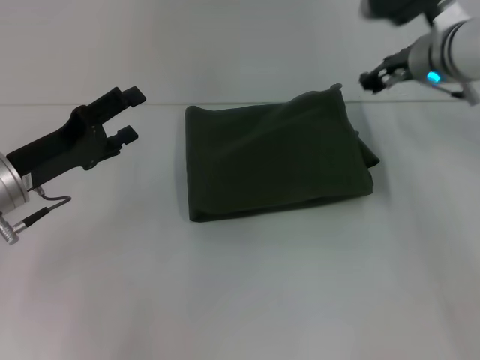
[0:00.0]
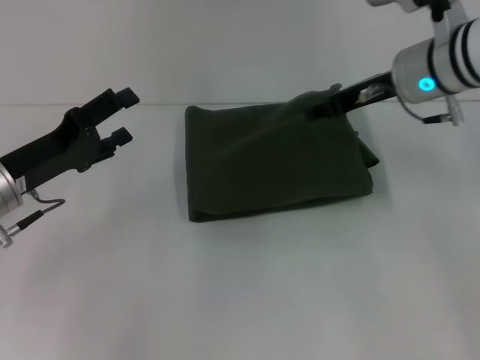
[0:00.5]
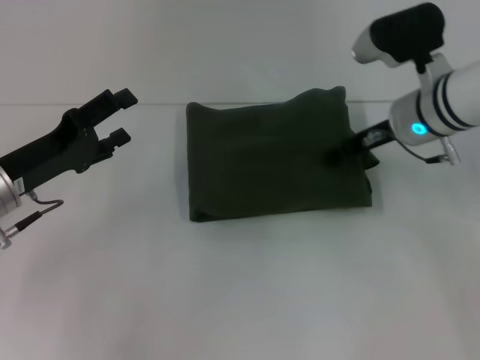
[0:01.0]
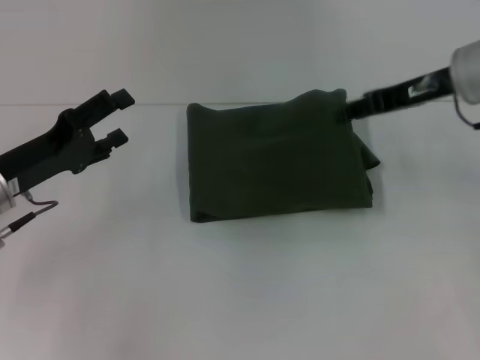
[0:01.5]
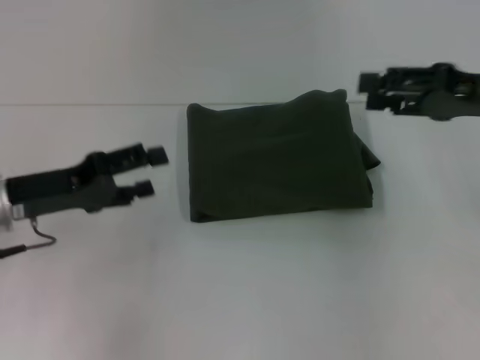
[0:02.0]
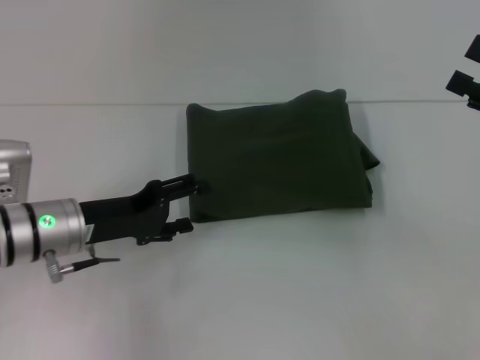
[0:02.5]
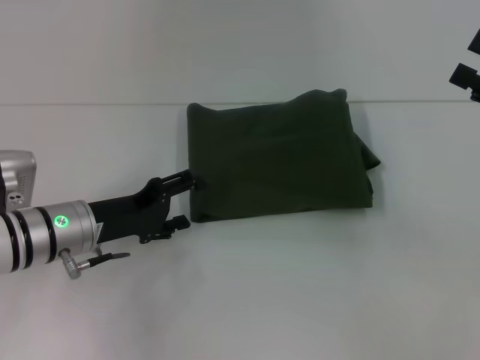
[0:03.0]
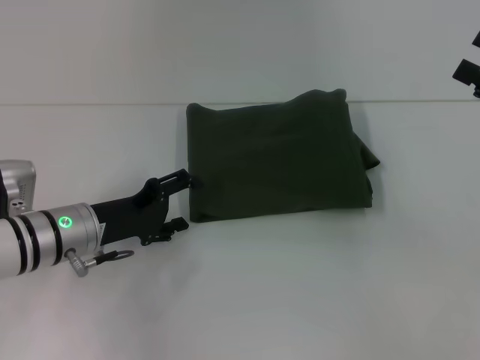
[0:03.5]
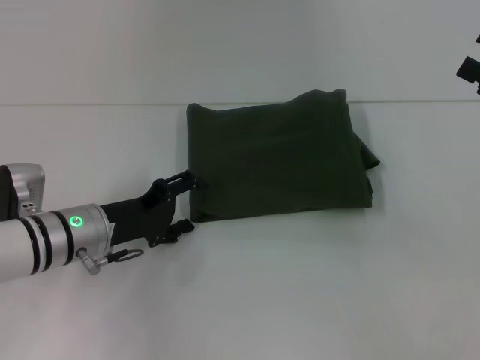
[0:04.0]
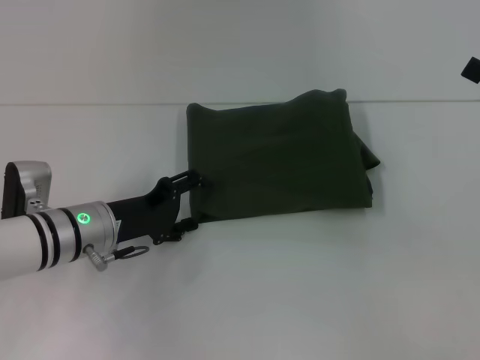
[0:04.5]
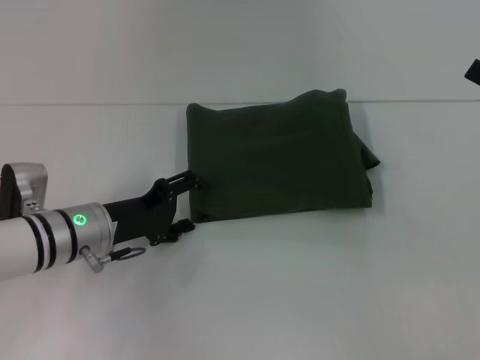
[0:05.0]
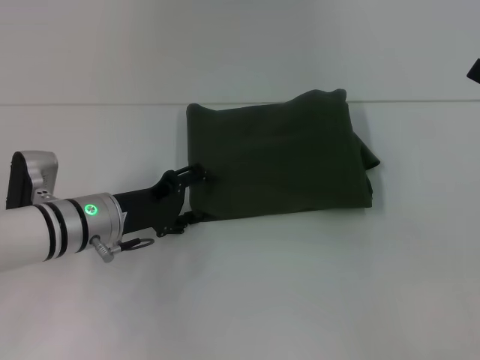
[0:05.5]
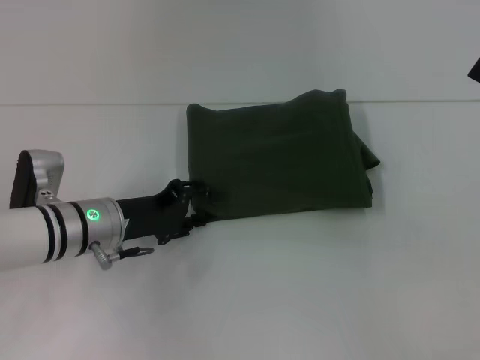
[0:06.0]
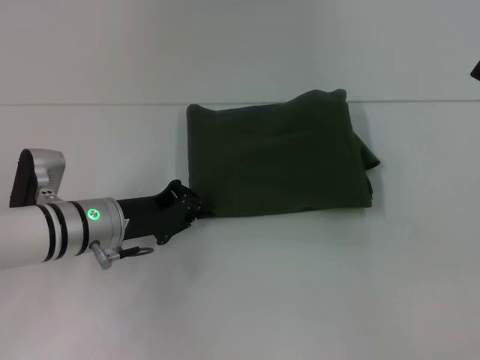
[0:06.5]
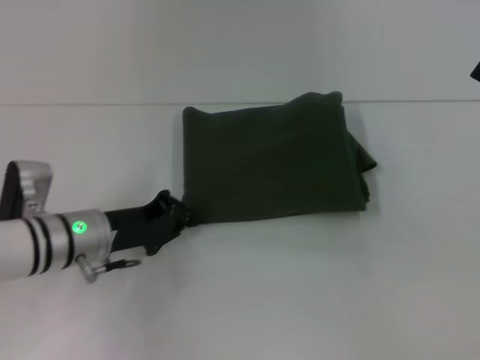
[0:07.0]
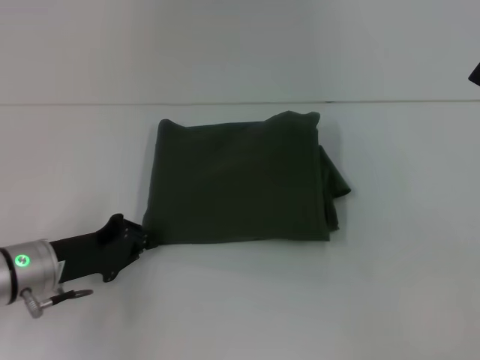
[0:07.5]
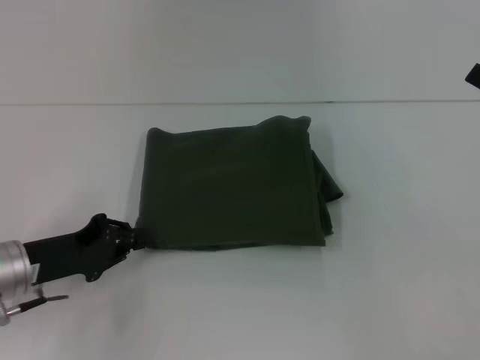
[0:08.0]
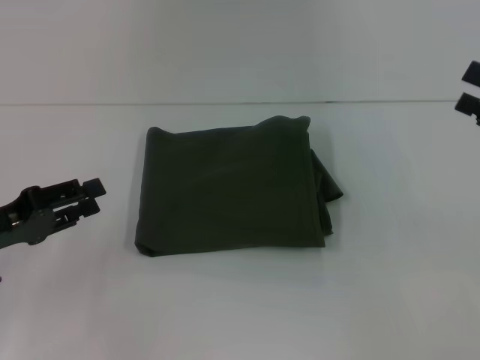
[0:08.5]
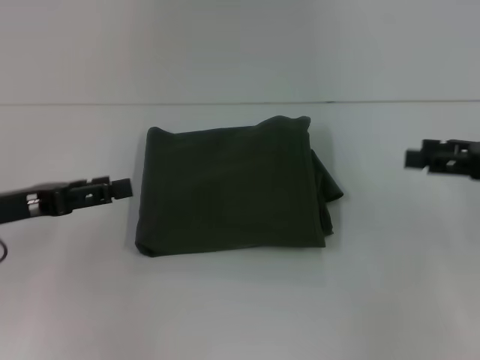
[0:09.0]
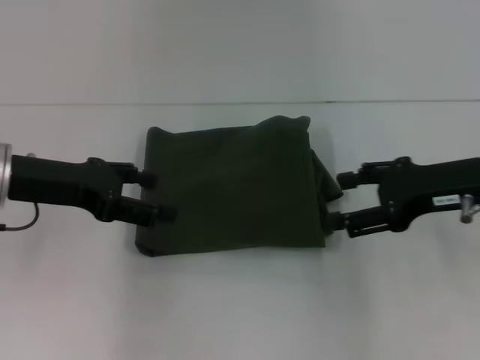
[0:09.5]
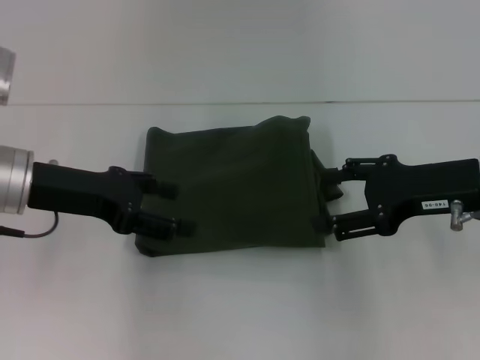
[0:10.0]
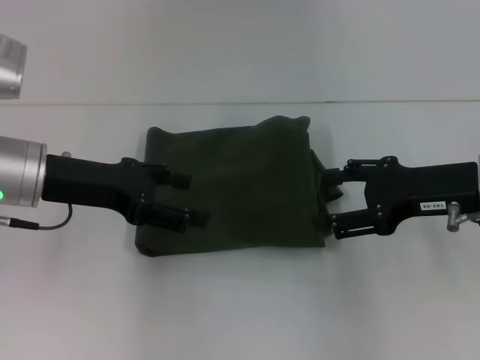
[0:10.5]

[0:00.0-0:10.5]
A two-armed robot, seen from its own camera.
0:00.0 to 0:02.0: The right gripper goes some 15 cm backward and to the right.
0:02.0 to 0:04.0: The right gripper goes roughly 10 cm to the right and backward, and opens its fingers, while the left gripper heads to the right and downward, covering some 10 cm.
0:04.0 to 0:06.5: The left gripper closes up.
0:06.5 to 0:08.5: The left gripper shifts approximately 15 cm to the left and backward.
0:08.5 to 0:10.5: The right gripper moves to the left, roughly 10 cm; the left gripper goes approximately 15 cm to the right, forward and upward, and opens up.

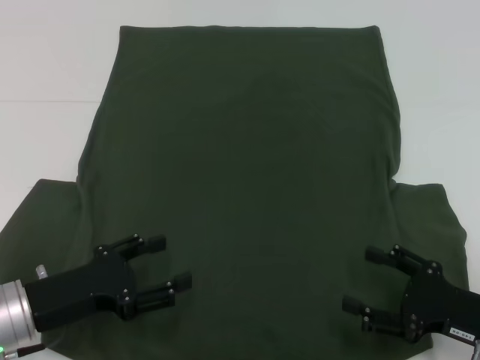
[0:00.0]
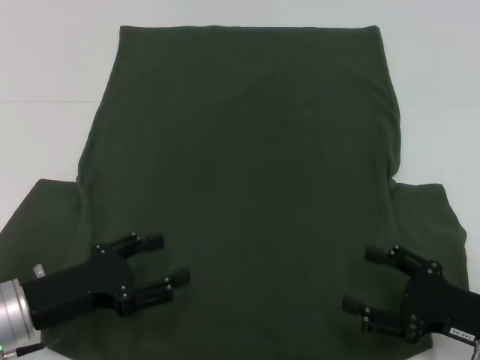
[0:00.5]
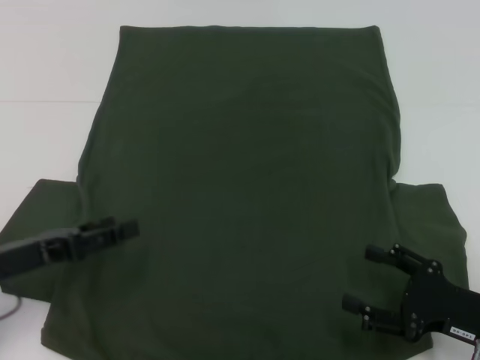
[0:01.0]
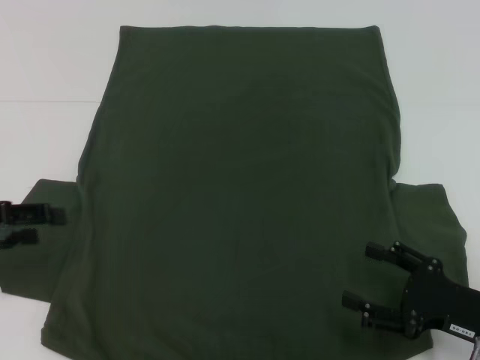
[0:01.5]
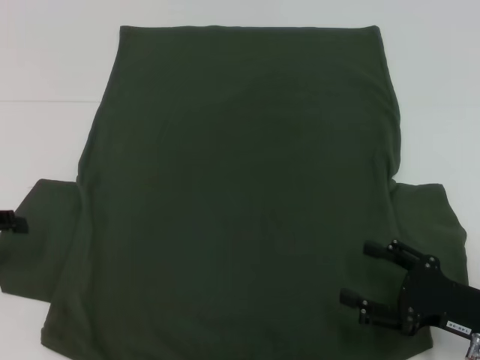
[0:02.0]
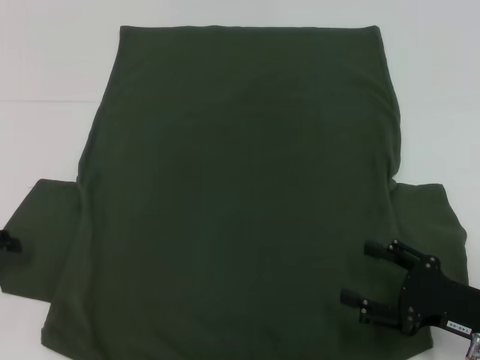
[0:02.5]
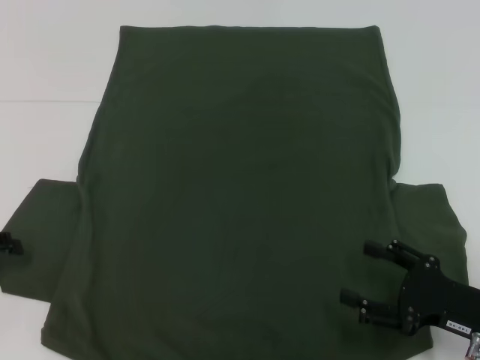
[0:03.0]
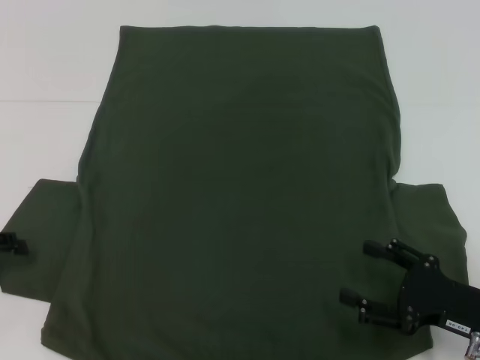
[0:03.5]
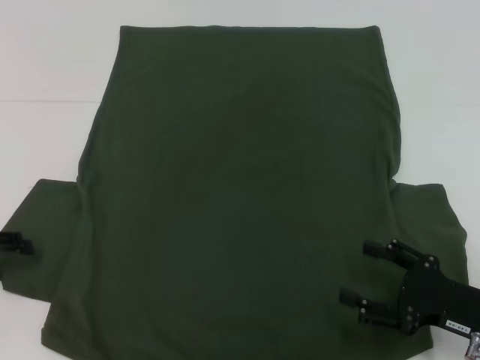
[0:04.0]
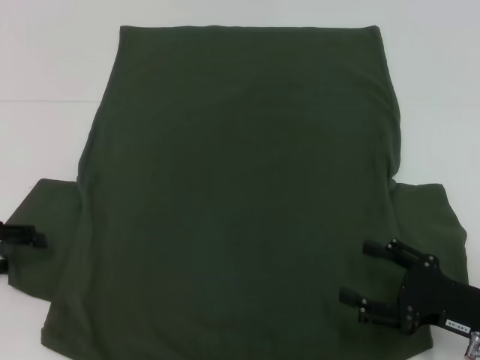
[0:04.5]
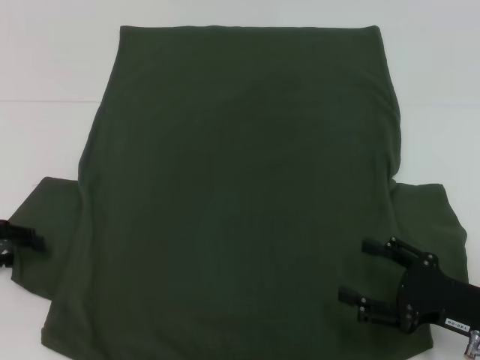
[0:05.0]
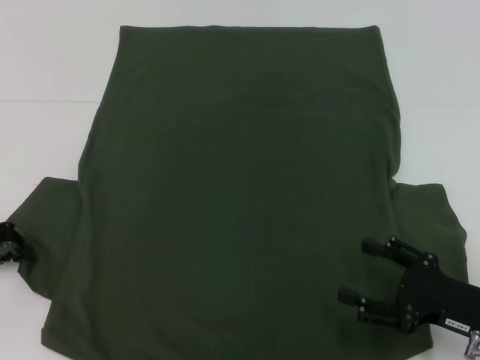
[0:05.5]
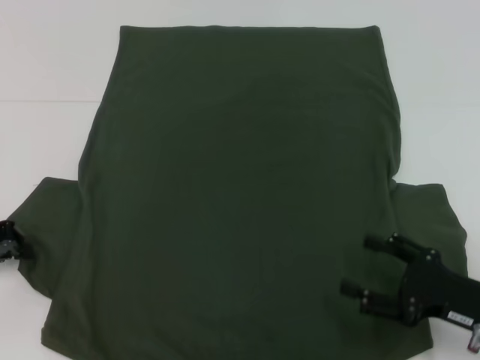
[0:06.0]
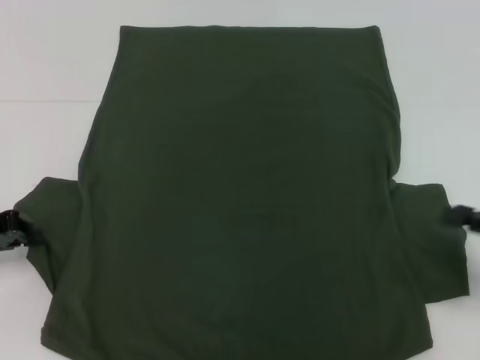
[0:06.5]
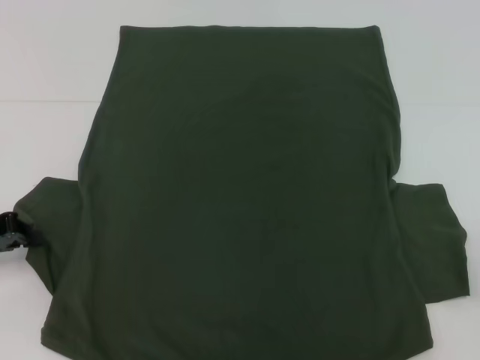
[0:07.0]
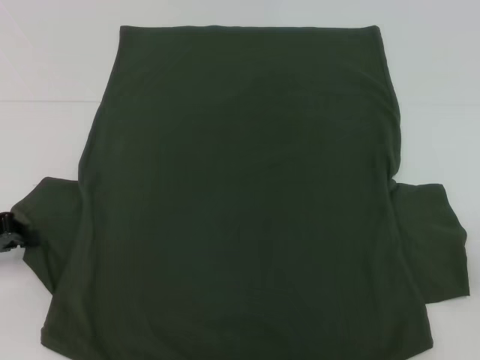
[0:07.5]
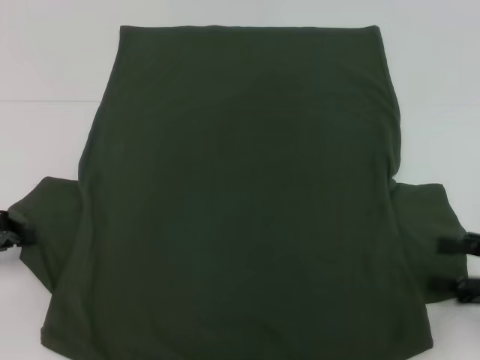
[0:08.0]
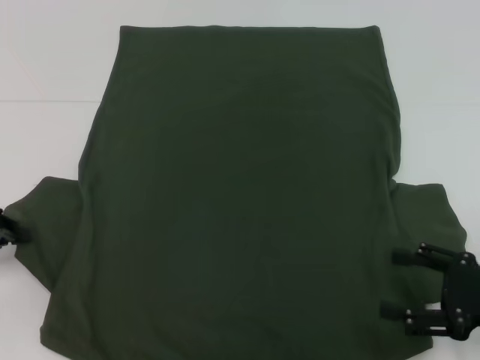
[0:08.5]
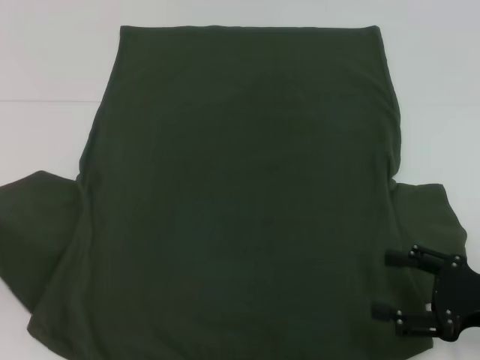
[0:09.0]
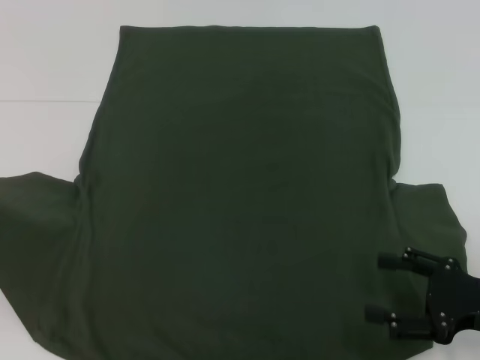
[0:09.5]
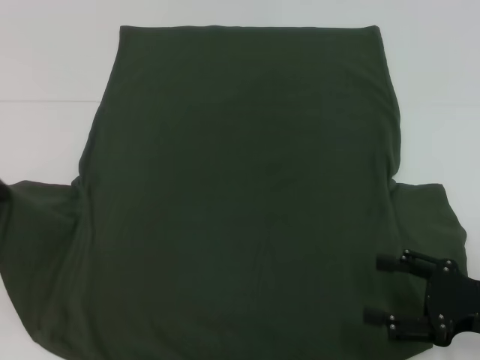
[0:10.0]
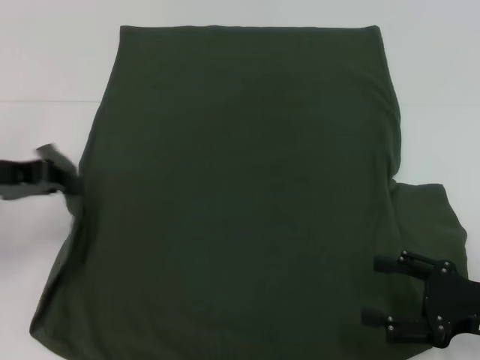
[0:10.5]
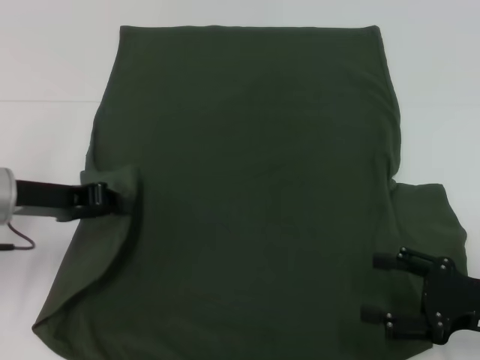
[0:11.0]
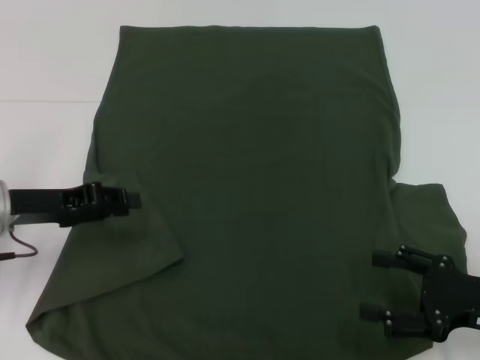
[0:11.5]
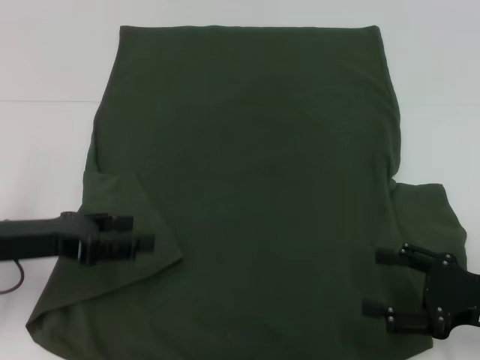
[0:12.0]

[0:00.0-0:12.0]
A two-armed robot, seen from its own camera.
Step, 0:00.0 to 0:11.0: Fold the bottom left sleeve with your left hand.
0:00.0 to 0:02.0: The left gripper goes roughly 15 cm to the left, upward and forward.
0:04.0 to 0:06.0: The left gripper closes.
0:06.0 to 0:08.0: The right gripper goes approximately 10 cm upward and to the right.
0:08.0 to 0:10.0: The right gripper travels downward by some 5 cm, while the left gripper moves upward, approximately 5 cm.
0:10.0 to 0:12.0: The left gripper shifts roughly 10 cm to the right and downward, and opens its fingers.

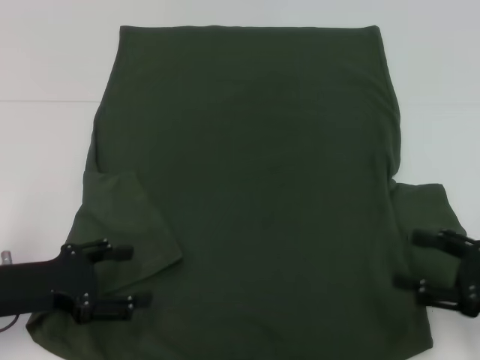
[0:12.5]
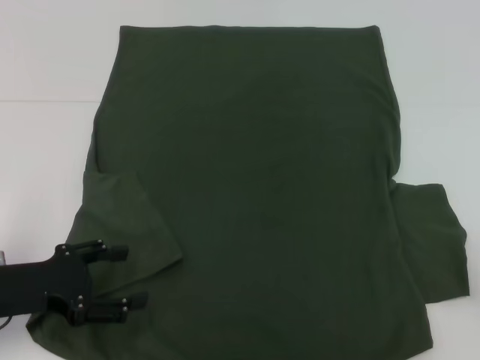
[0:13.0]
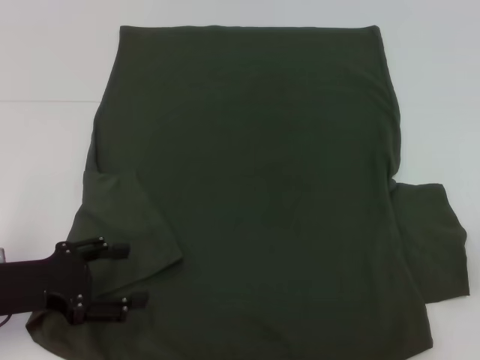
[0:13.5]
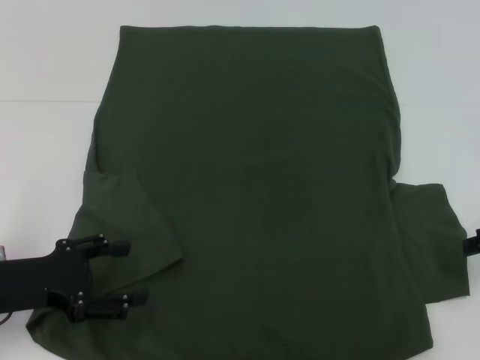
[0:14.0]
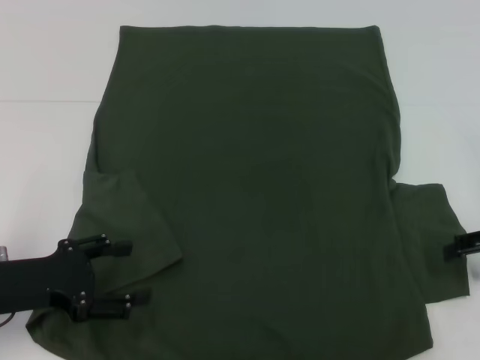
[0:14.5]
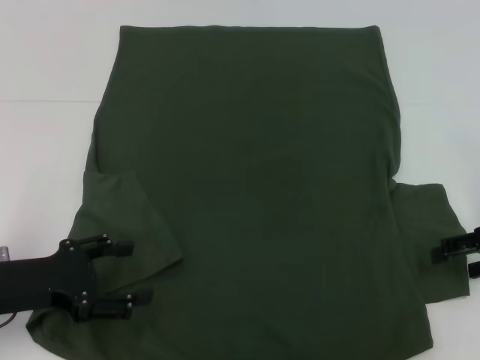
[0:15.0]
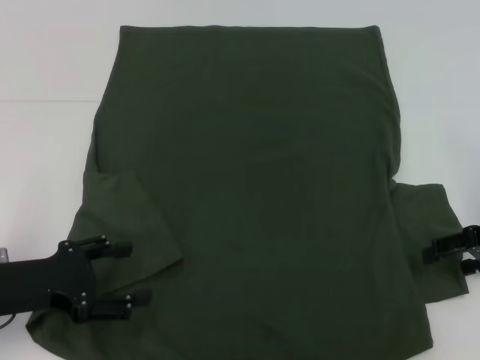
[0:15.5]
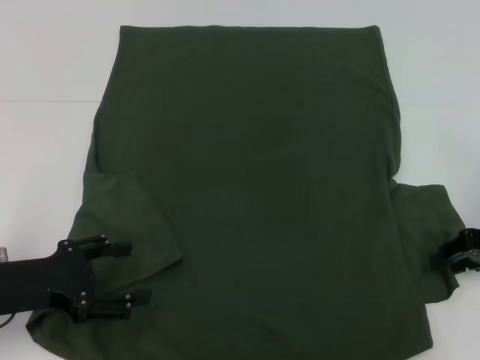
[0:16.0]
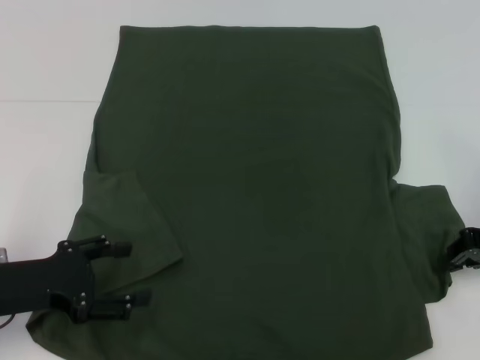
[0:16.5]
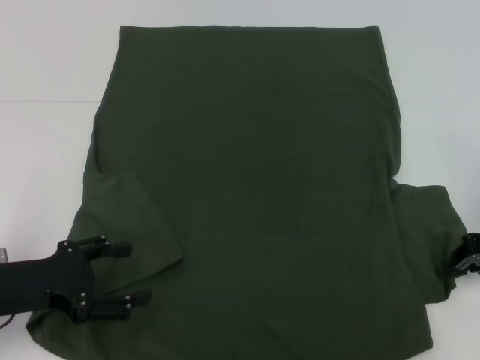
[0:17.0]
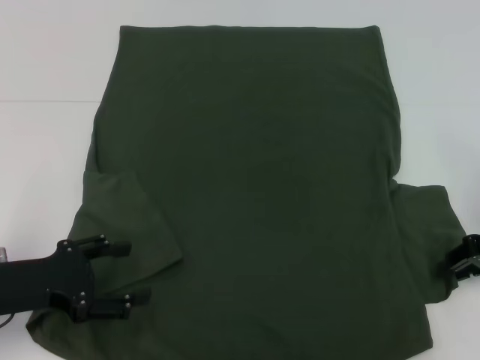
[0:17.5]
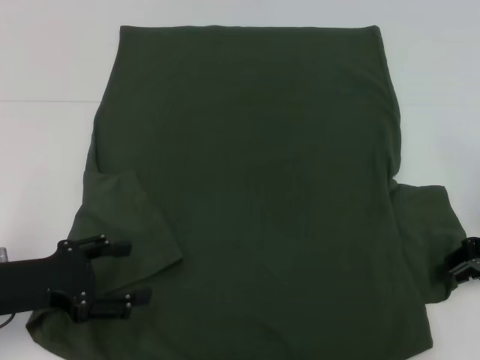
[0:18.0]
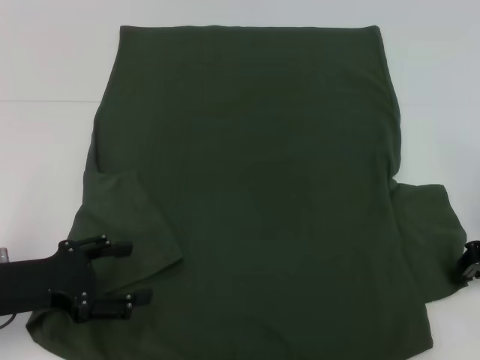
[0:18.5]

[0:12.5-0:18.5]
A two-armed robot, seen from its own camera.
0:12.5 to 0:14.5: The right gripper heads forward and upward, covering approximately 10 cm.
0:14.5 to 0:16.5: The right gripper closes its fingers.
0:16.5 to 0:18.5: Both grippers stay about where they are.
